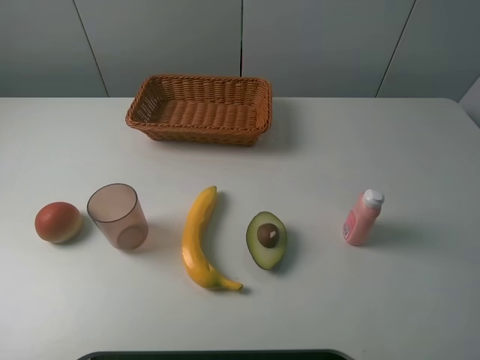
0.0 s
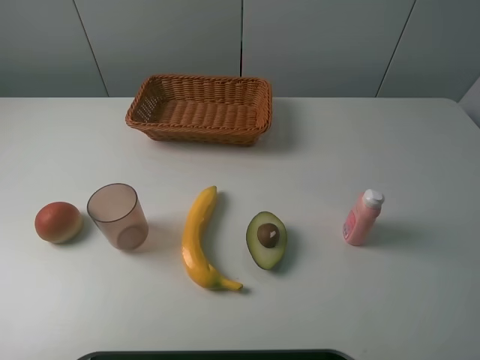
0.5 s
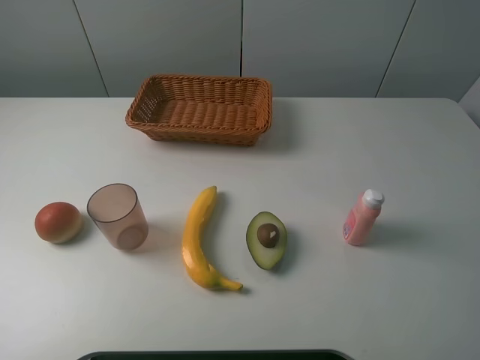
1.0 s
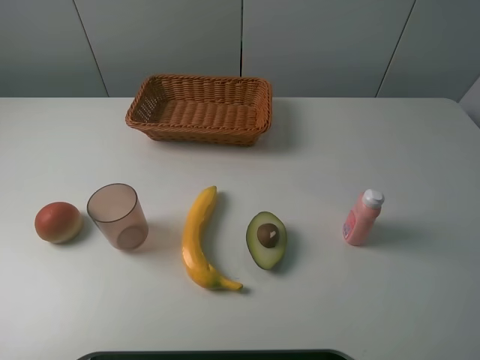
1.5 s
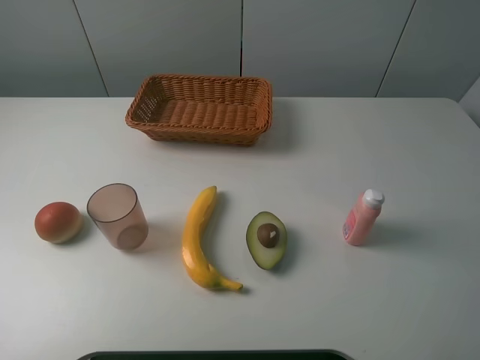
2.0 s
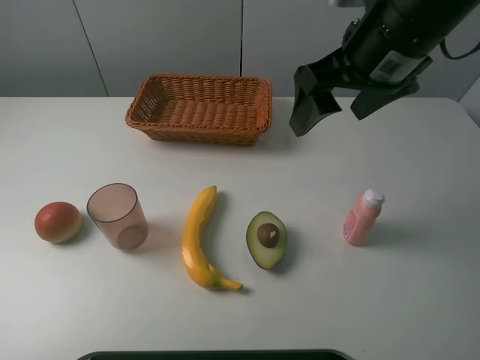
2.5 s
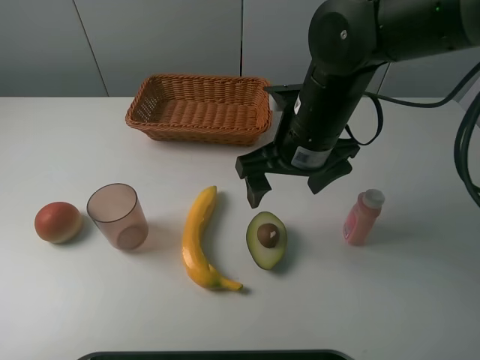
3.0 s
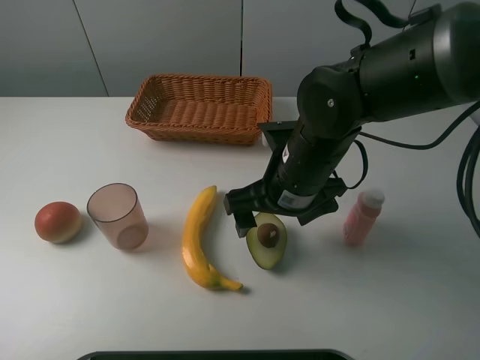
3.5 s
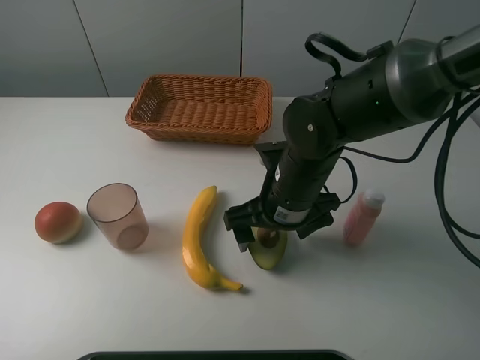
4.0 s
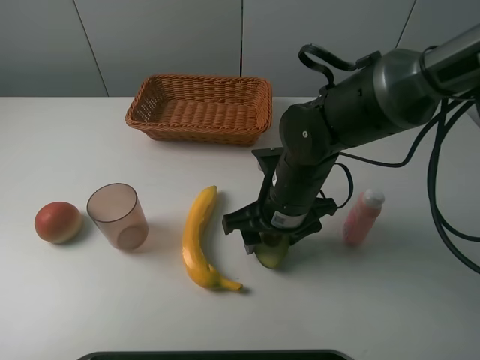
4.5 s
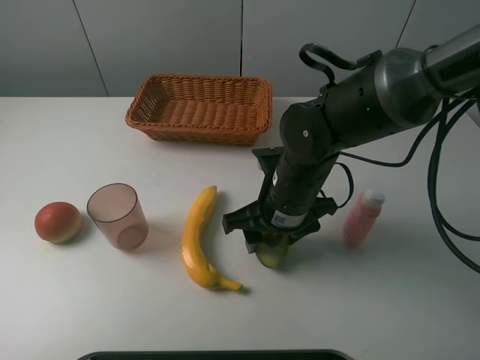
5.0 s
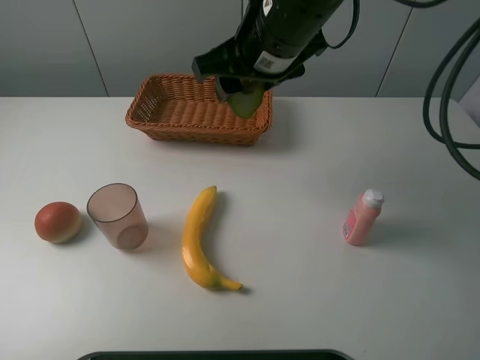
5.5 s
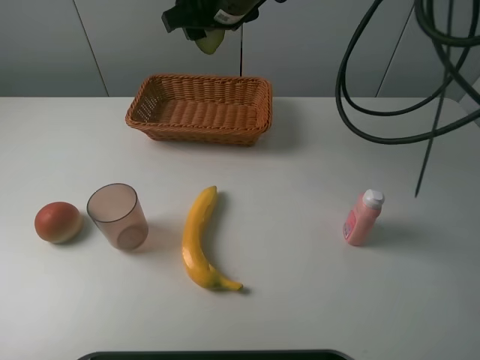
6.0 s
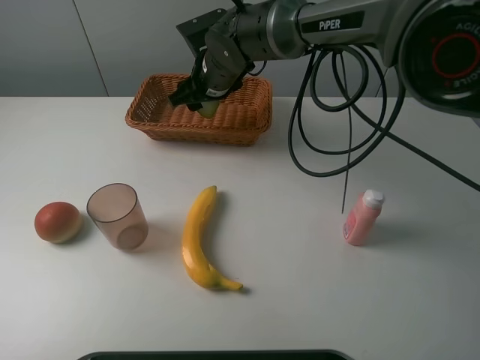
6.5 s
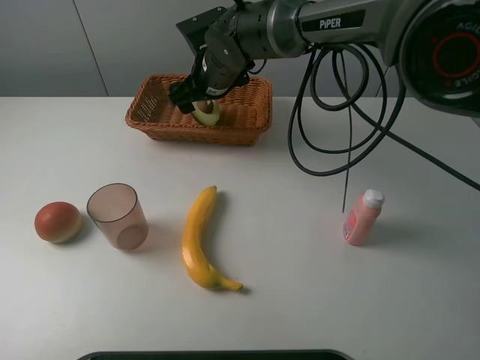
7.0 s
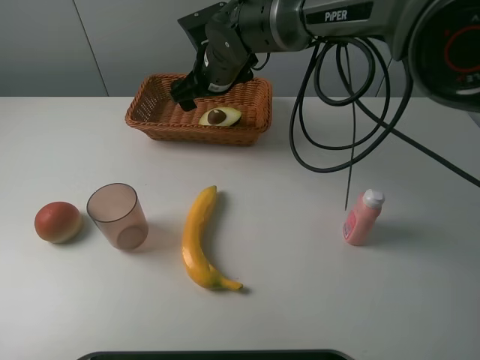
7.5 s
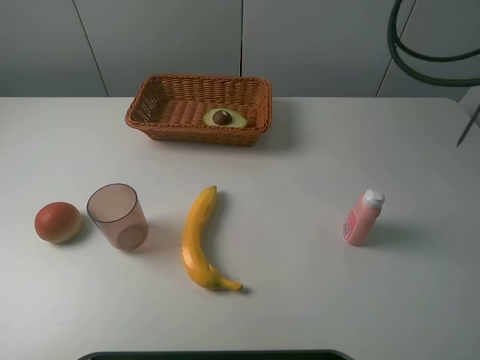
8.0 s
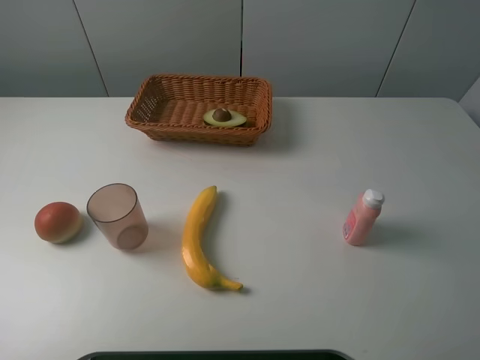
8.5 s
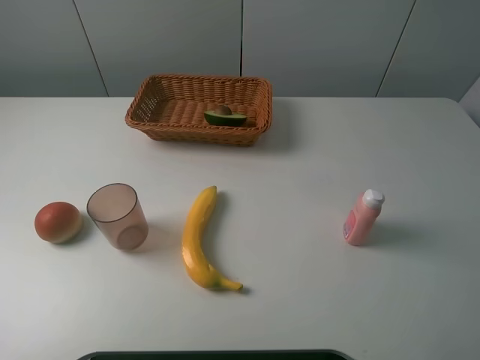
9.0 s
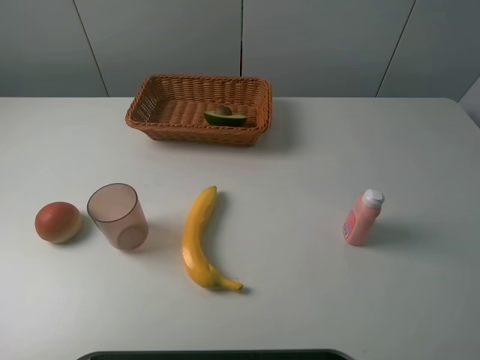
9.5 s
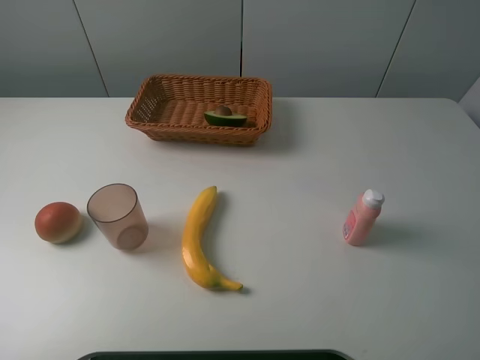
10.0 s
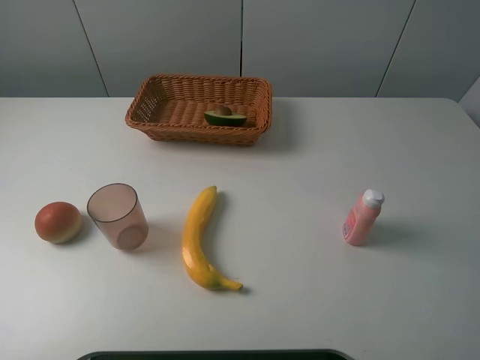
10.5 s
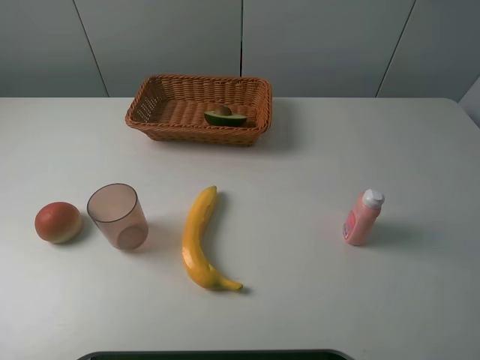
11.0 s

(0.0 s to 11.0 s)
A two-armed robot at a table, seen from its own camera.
Task of the whole recording: randomly pick up an item from the table and put it in the basket.
Step, 0.0 s - 4.5 s: Grasp the avocado with the right gripper.
Step, 5.0 s - 7.5 s: Place the avocado into the basket with the right gripper.
2.0 s - 3.5 s: The right gripper goes some 30 cm downward and to the left.
3.5 s - 5.5 s: The right gripper shifts roughly 15 cm upward and forward, and closes its fingers.
5.5 s - 7.5 s: The right gripper is displaced forward, downward and to the left by some 15 cm, and opens its fingers.
7.5 s - 9.0 s: The right gripper moves to the right, upward and backward, approximately 50 cm.
